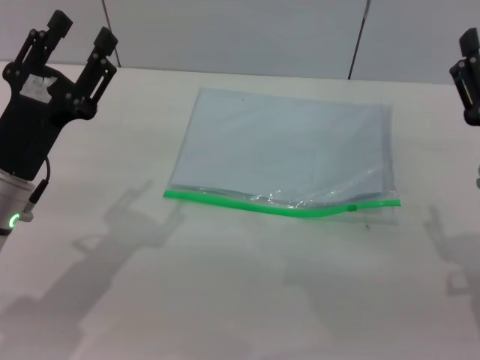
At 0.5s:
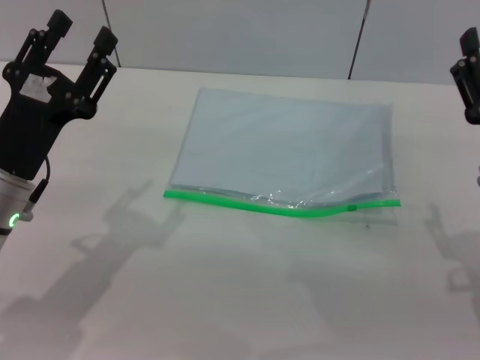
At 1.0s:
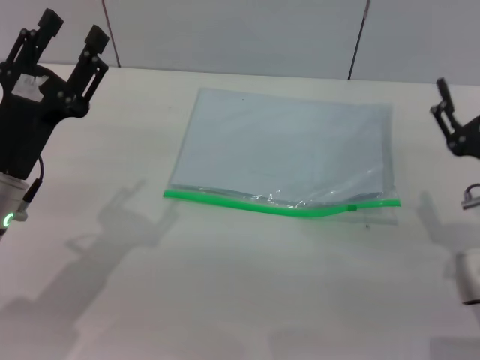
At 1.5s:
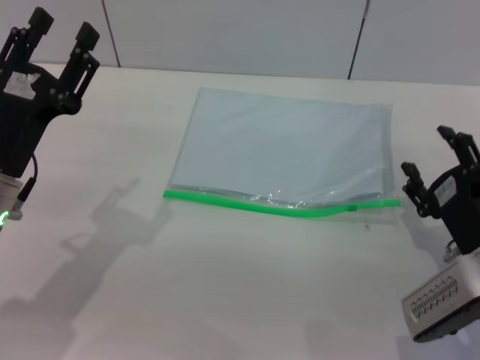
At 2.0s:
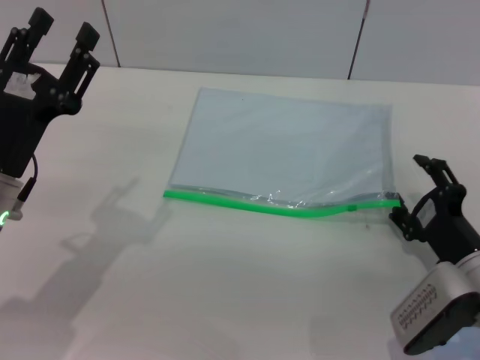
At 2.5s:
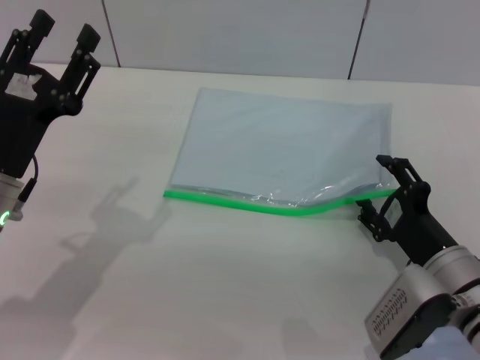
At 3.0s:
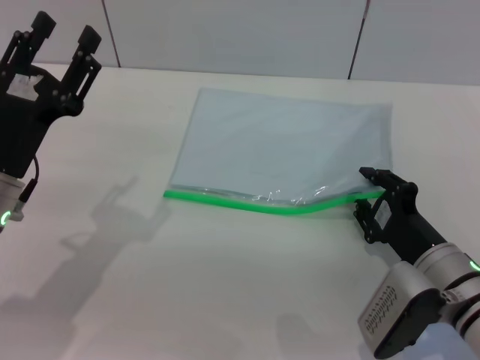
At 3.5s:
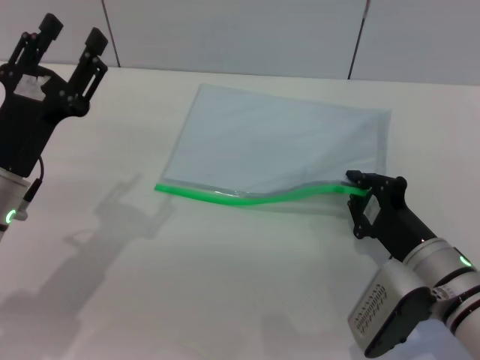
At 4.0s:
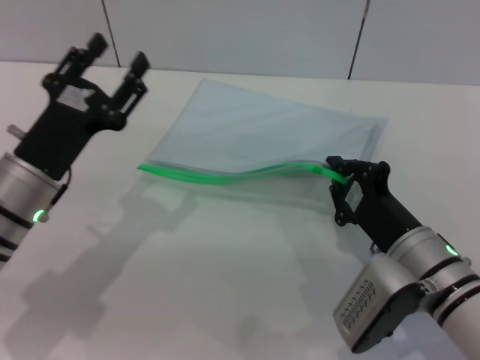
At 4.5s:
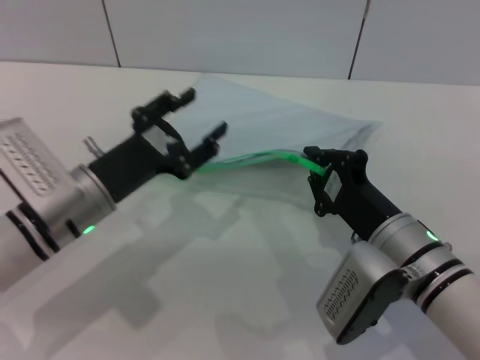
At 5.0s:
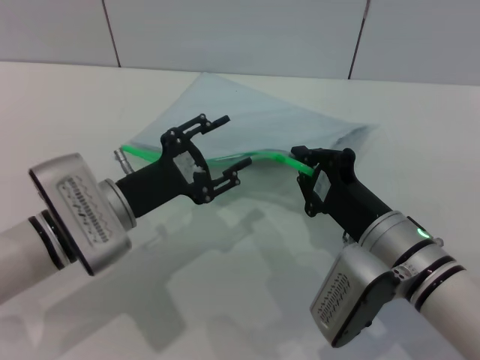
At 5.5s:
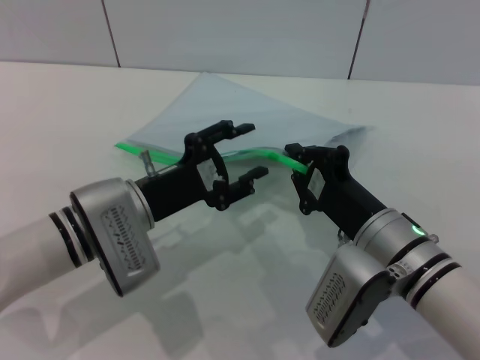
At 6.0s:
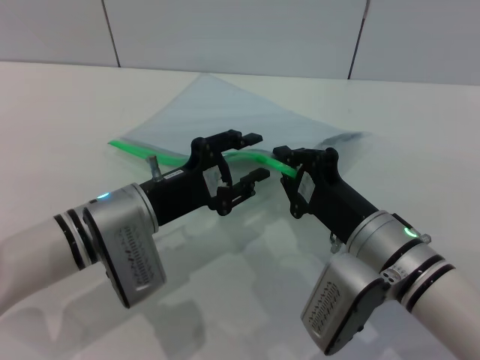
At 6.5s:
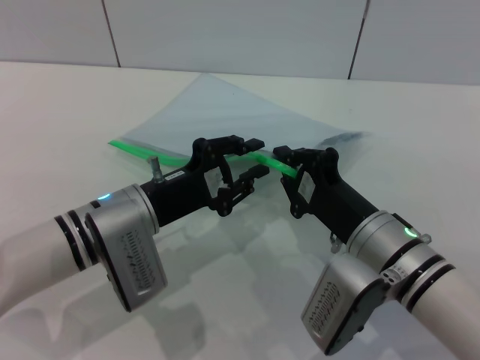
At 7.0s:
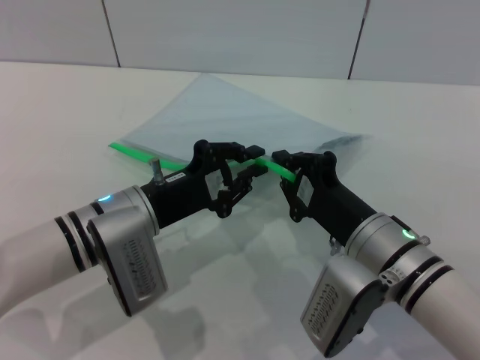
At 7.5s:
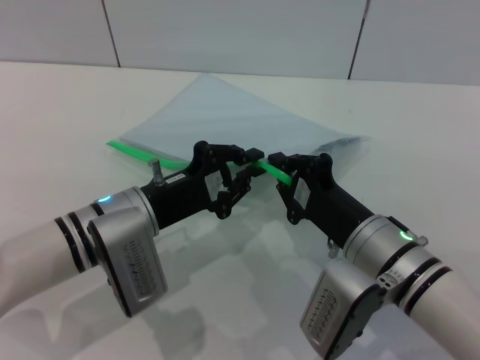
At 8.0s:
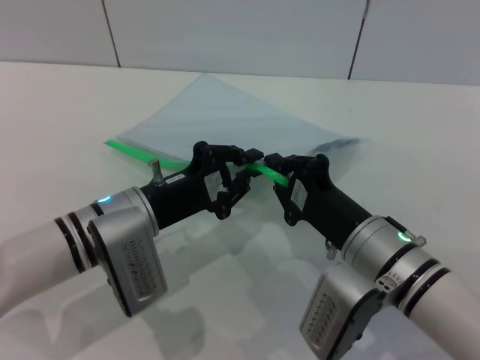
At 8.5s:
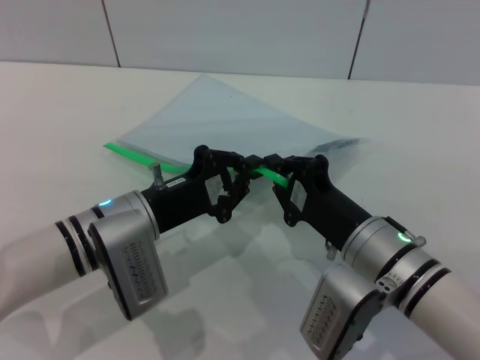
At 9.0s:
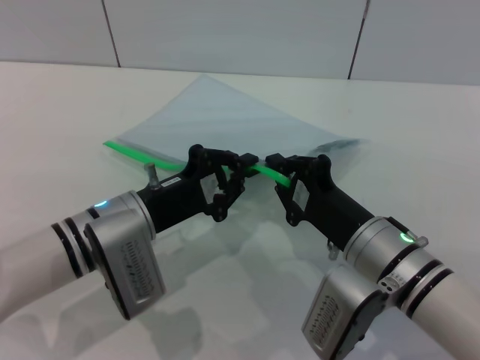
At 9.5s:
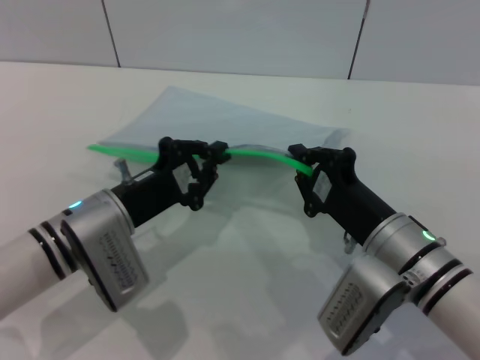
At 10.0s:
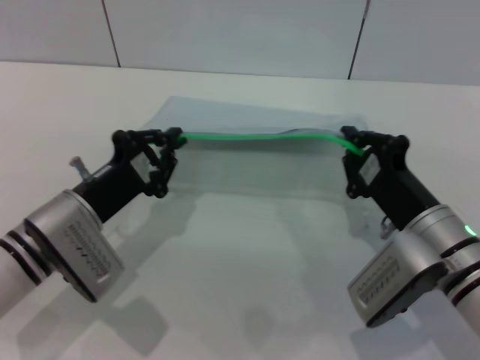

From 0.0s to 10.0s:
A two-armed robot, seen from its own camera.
Step, from 0.0s to 4.0s: Pick up the transparent plastic bag with the right gripper.
From 0.0s to 2.0s: The right gripper moves downward, some 10 cm.
From 2.0s to 4.0s: The right gripper travels to the left by about 5 cm, and closes its fingers.
From 4.0s to 6.0s: The left gripper goes about 5 cm to the right.
From 6.0s to 8.0s: The left gripper closes its fingers.
From 8.0s to 10.0s: The left gripper changes place by some 5 cm; the right gripper moves to the right, about 5 cm.

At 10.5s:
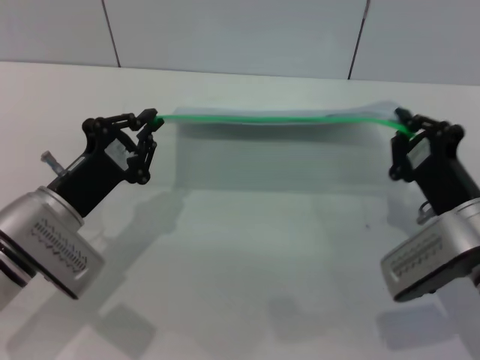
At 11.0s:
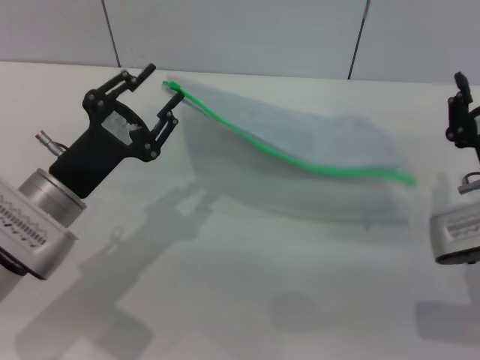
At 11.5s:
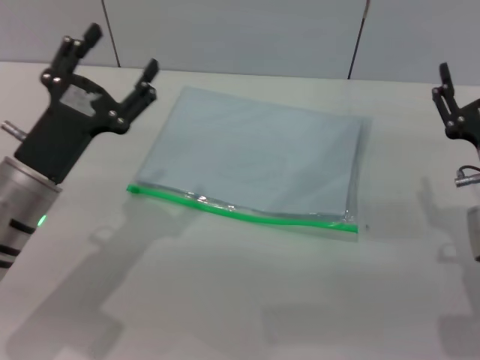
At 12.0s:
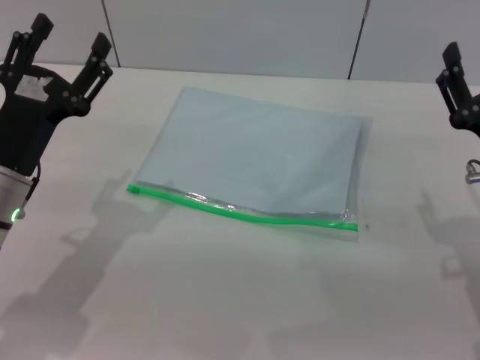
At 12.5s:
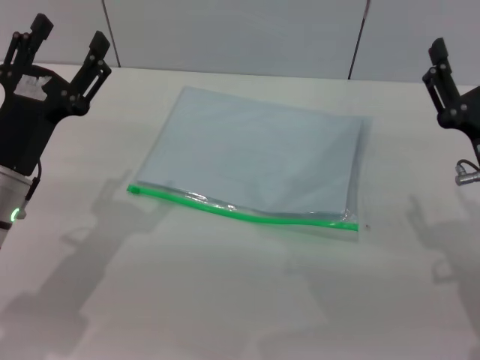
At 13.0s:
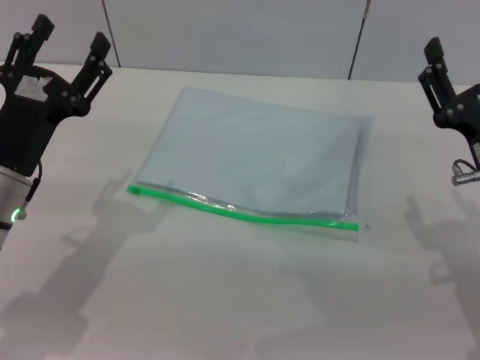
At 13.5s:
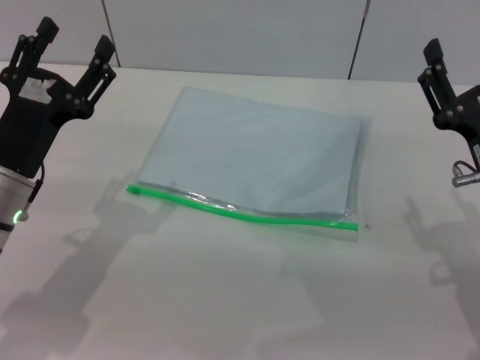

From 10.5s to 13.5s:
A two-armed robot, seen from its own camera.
Step, from 11.0s to 11.5s: Place the transparent plastic bag.
From 10.5s to 12.0s: The right gripper opens; the left gripper opens up.
From 12.0s to 13.5s: Neither gripper changes place.
